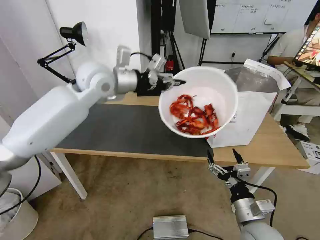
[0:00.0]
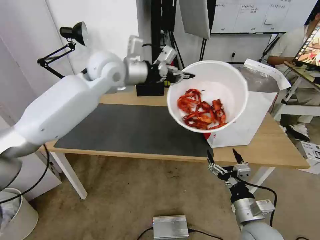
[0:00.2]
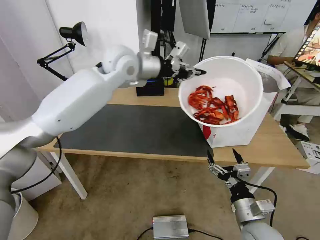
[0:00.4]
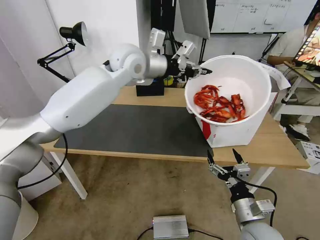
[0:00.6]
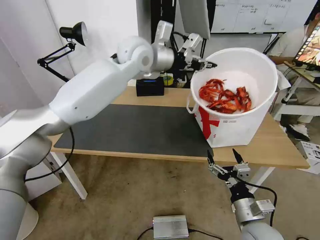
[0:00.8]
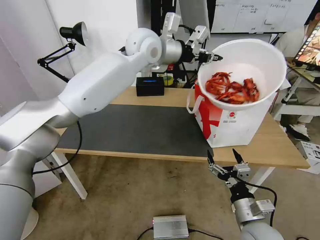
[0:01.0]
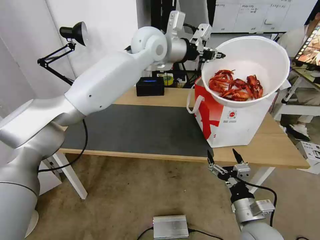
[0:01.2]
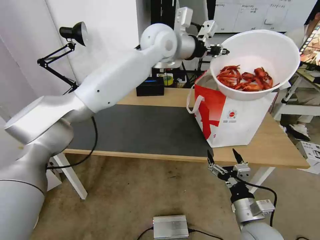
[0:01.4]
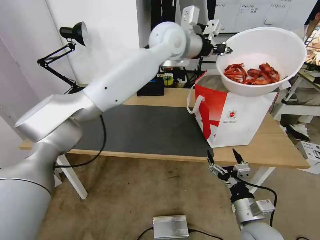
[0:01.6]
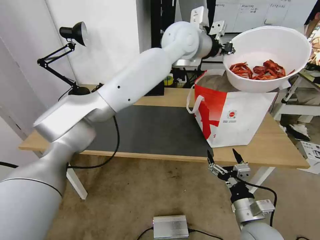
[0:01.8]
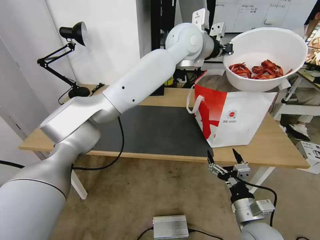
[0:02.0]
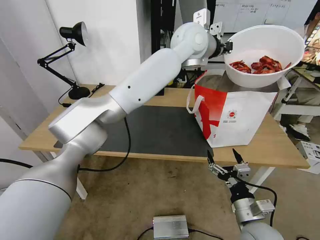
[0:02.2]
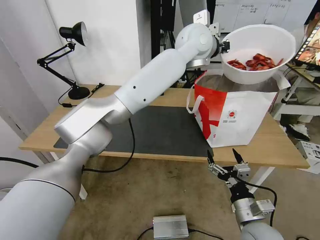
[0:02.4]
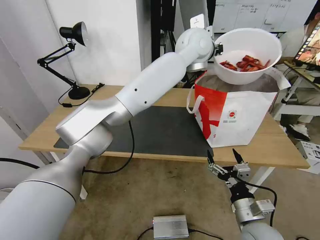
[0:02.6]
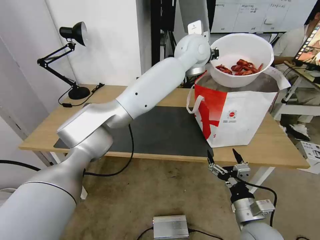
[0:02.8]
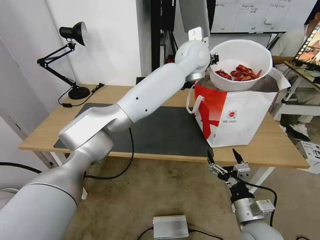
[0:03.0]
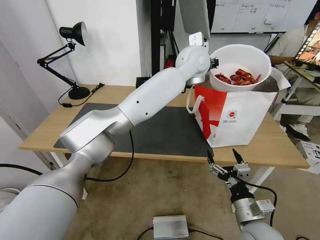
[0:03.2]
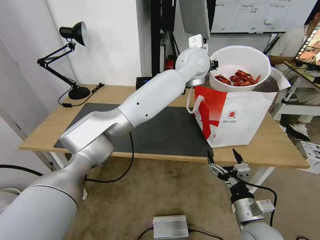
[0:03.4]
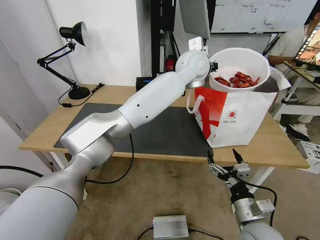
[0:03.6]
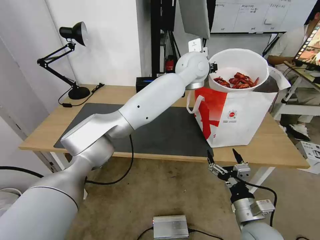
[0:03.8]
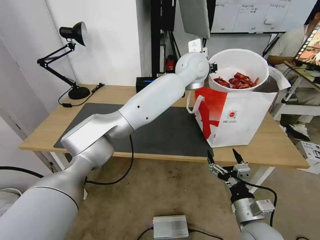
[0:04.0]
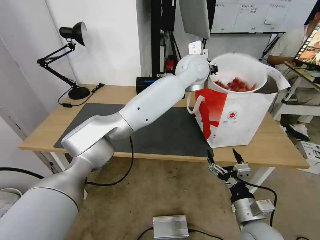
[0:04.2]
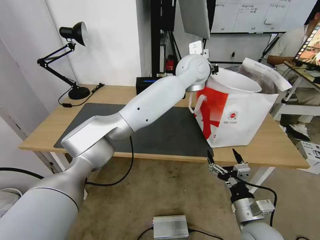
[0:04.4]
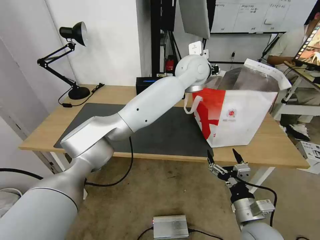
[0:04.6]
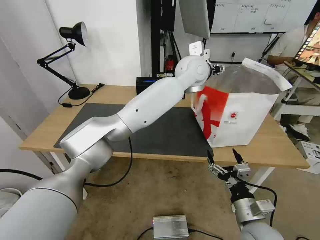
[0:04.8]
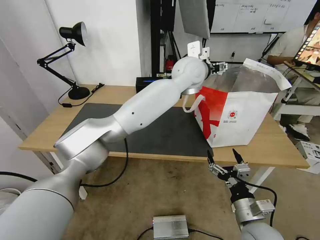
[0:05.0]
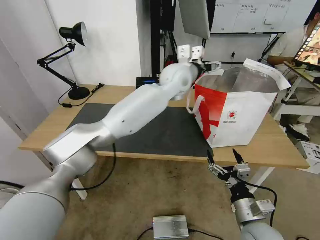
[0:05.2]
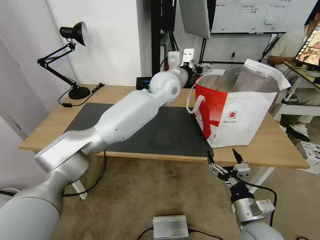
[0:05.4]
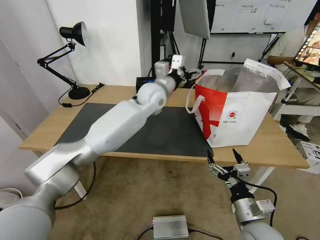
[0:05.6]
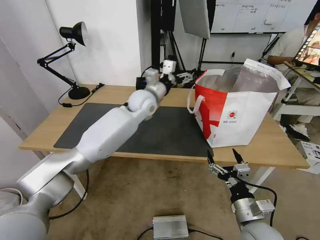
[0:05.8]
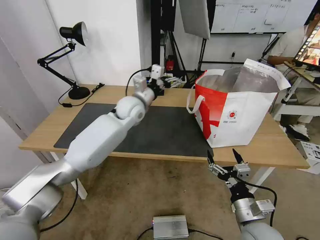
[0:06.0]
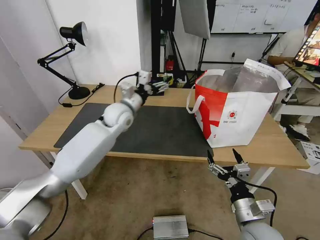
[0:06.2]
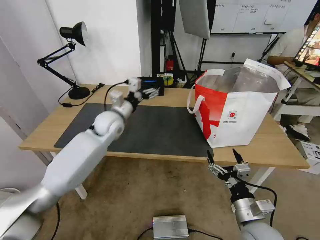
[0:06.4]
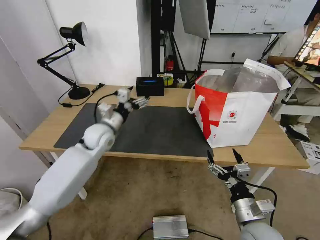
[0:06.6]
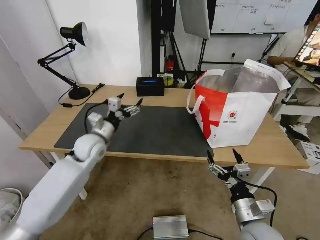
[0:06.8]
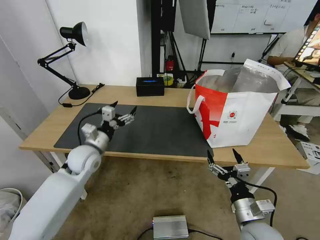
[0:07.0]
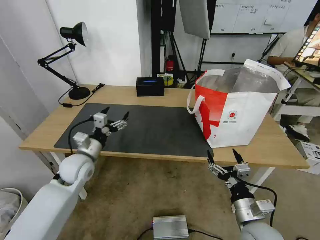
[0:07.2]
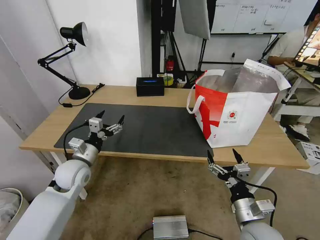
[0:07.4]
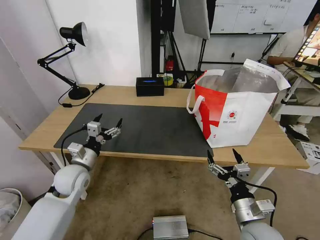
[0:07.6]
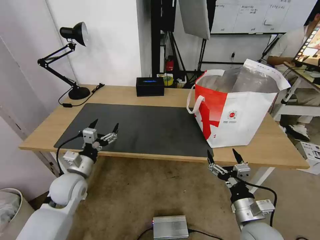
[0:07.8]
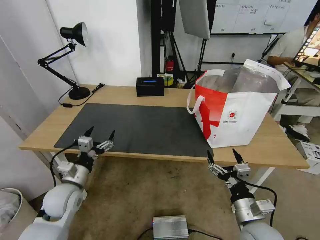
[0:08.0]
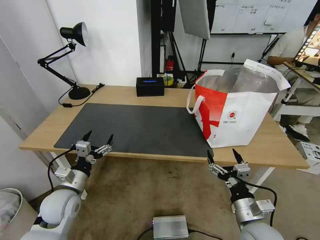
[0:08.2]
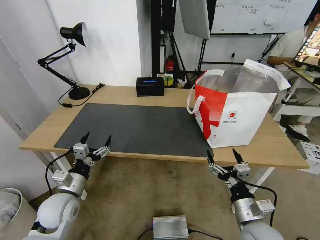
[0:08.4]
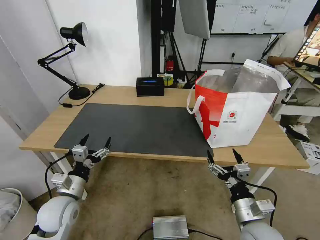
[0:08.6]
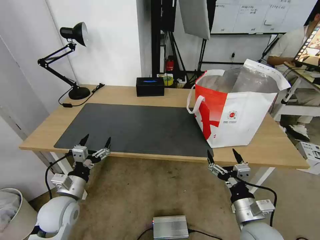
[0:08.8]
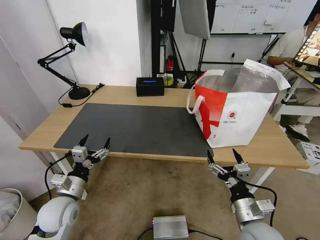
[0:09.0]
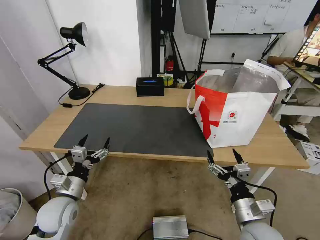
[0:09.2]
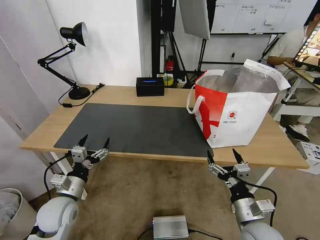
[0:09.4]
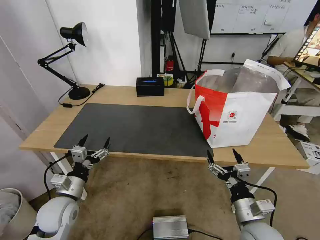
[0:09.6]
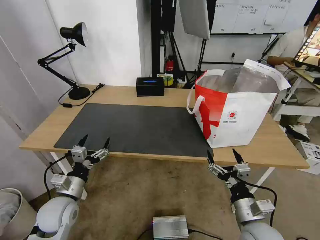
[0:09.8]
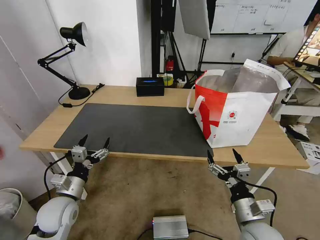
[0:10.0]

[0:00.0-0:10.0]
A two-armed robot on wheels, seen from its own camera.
Task of the whole recording: Pick up the trash from the table and place it into the takeout bag.
0:00.0 to 0:01.4: The left gripper moves to the right and forward, about 20 cm.
0:01.4 to 0:02.8: The left gripper goes about 10 cm to the right.
0:02.8 to 0:04.2: The grippers move only a little.
0:04.2 to 0:05.8: The left gripper shifts approximately 20 cm to the left and downward, and opens up.
0:05.8 to 0:07.2: The left gripper shifts some 30 cm to the left, backward and downward.
0:07.2 to 0:08.6: The left gripper travels backward and downward by roughly 15 cm.
0:08.6 to 0:10.0: Both grippers stay about where they are.

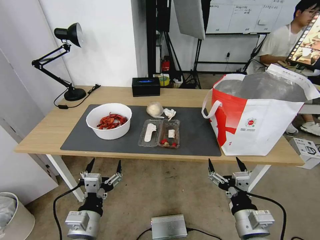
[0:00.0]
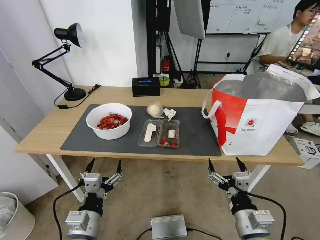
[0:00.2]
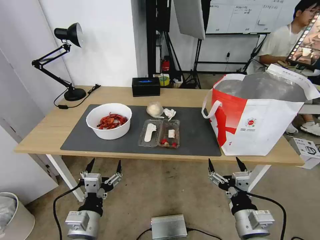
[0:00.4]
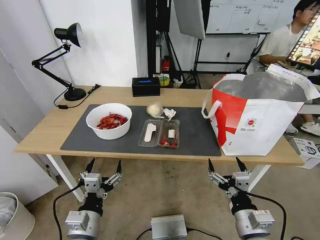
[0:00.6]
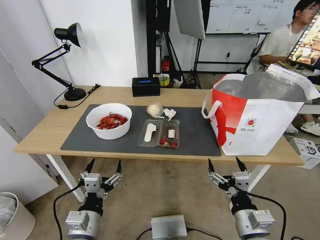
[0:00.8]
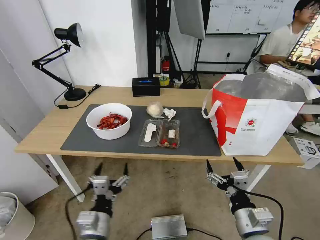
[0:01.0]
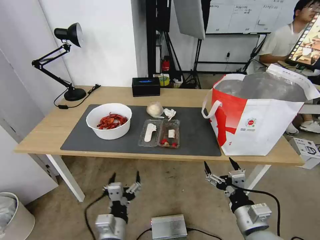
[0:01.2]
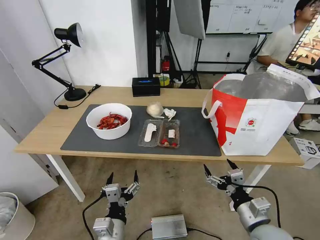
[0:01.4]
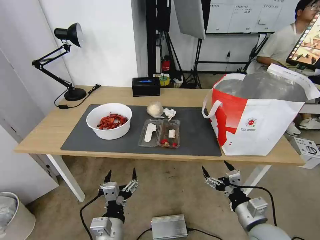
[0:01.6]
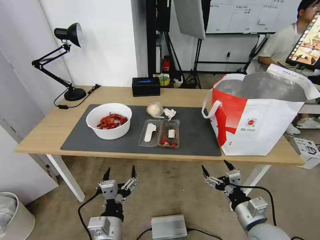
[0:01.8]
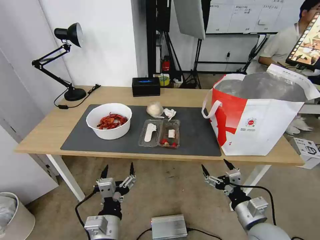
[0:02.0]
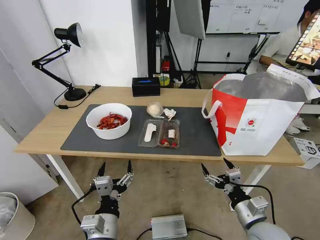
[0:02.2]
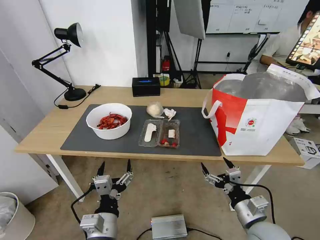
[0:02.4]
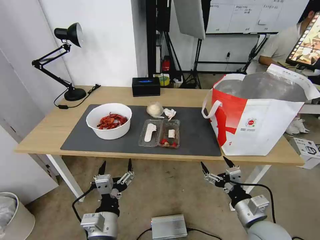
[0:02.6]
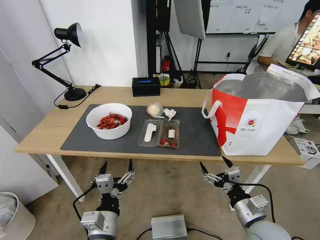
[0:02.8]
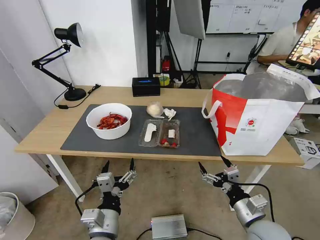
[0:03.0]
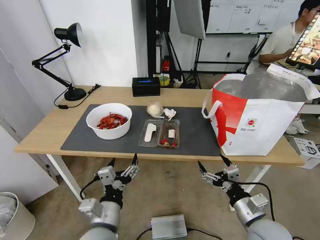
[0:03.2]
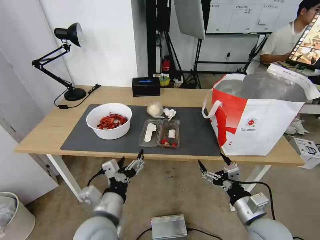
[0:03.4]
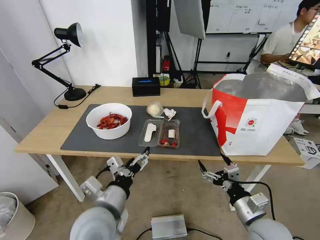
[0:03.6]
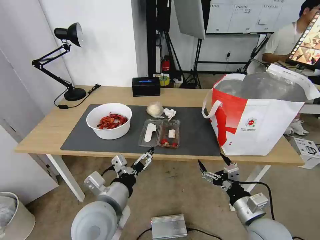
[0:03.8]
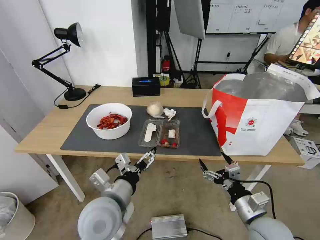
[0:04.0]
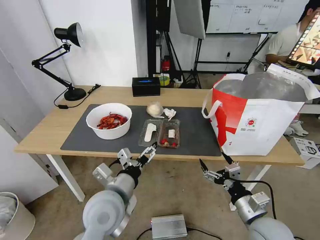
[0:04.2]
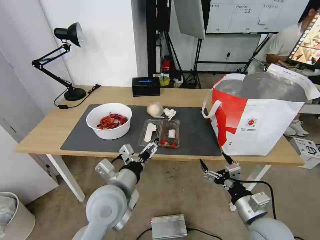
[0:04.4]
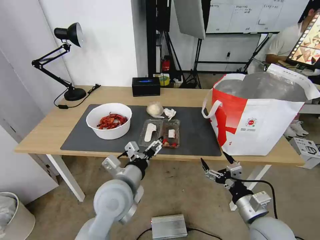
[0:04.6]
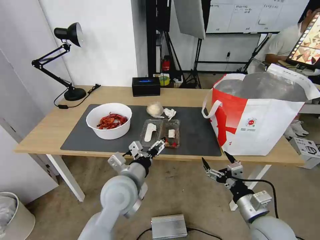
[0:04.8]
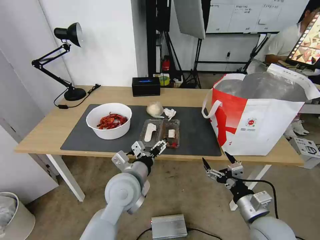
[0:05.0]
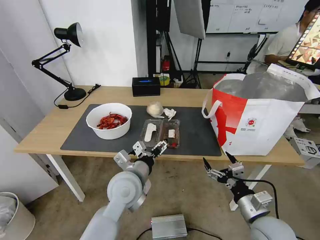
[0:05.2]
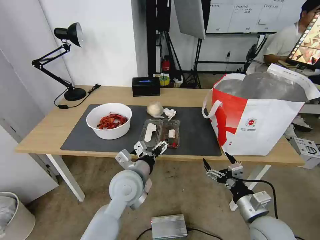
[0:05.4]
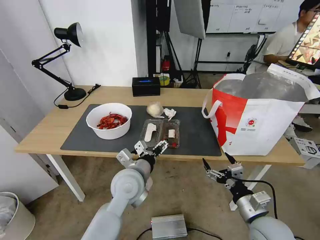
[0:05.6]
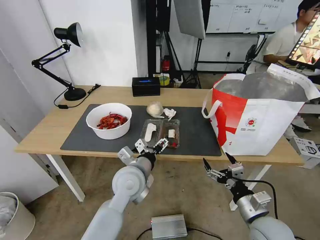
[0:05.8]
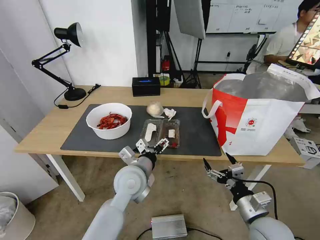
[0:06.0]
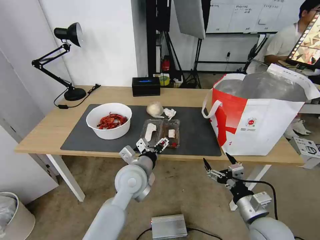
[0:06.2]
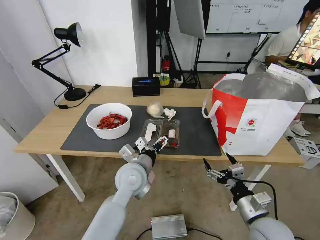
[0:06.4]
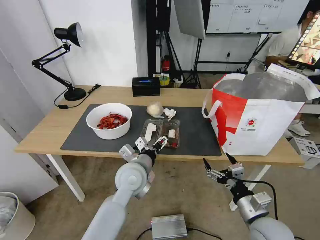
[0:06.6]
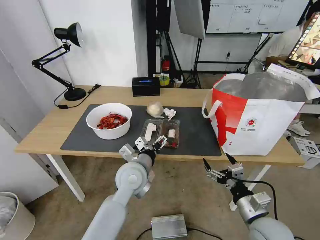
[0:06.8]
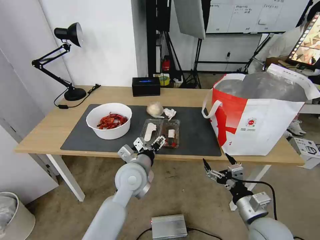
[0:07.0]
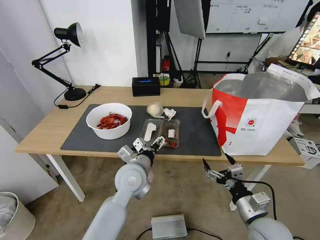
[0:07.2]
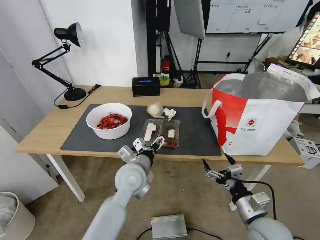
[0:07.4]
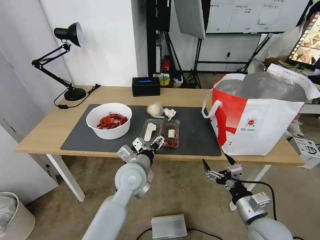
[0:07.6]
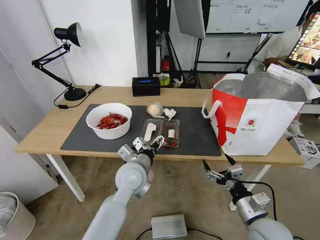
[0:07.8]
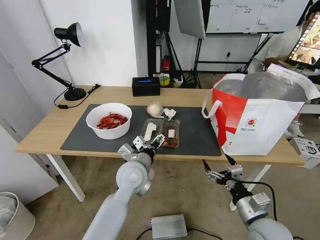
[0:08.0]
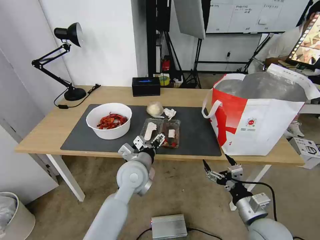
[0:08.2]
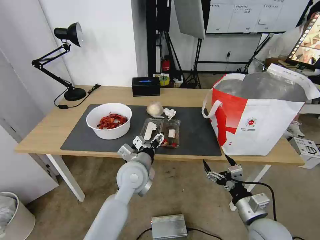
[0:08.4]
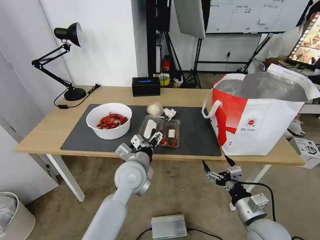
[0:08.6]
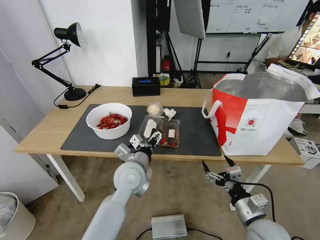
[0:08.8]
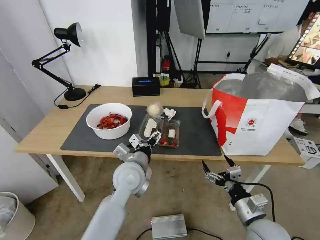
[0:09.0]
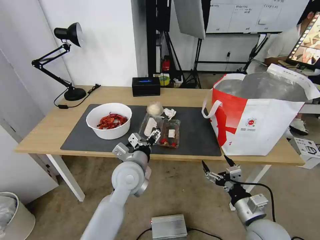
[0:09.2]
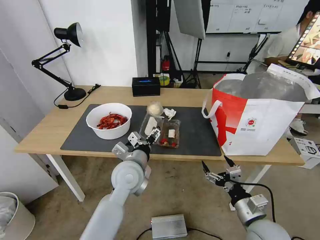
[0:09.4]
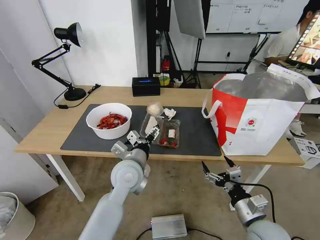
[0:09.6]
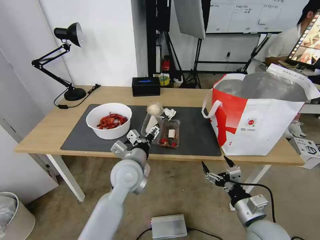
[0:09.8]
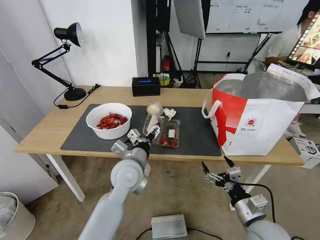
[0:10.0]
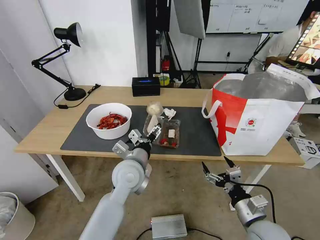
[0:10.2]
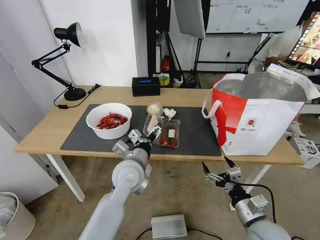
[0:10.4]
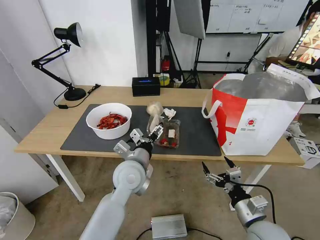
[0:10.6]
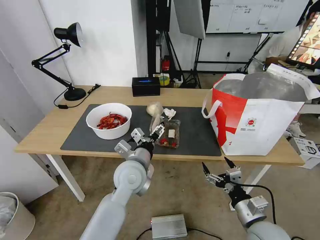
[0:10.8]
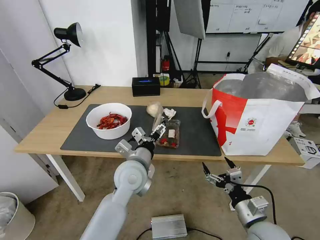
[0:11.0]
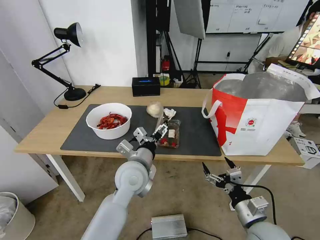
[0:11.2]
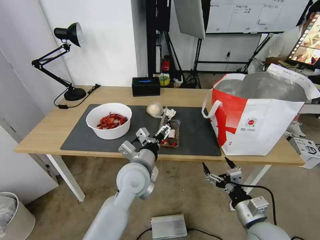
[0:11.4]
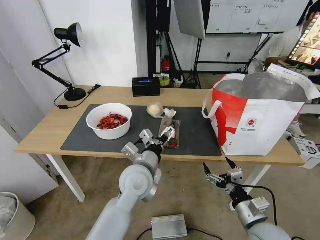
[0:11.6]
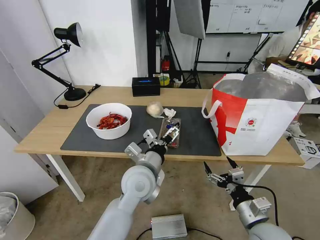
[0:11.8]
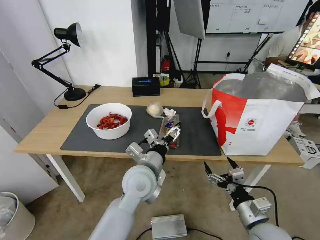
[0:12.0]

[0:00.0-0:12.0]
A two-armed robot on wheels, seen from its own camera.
Task of the whole recording: Pick up the trash from the table and place it into the takeout bag.
0:01.6 to 0:03.0: The grippers make only small movements.
0:03.0 to 0:04.4: The left gripper travels forward and upward by roughly 15 cm.
0:04.4 to 0:06.0: The left gripper heads forward, covering roughly 5 cm.
0:06.0 to 0:07.6: The grippers move only a little.
0:07.6 to 0:09.0: The two grippers keep their place.
0:09.0 to 0:12.0: The grippers make only small movements.
